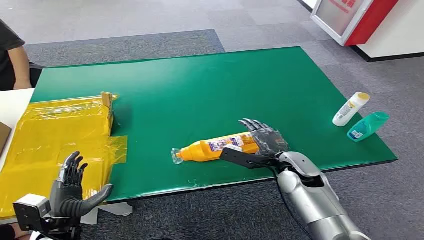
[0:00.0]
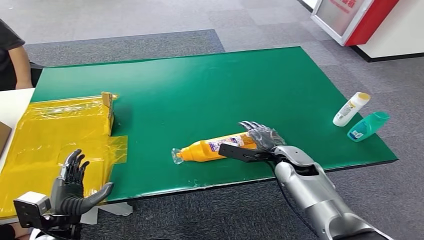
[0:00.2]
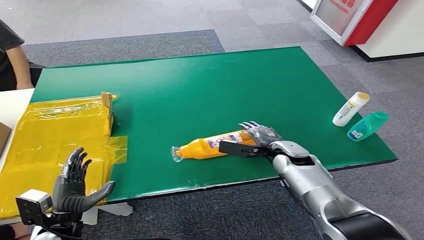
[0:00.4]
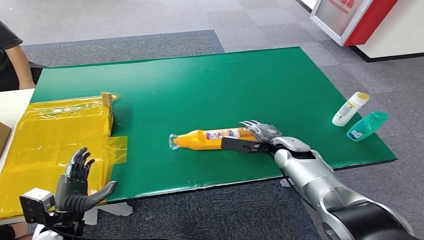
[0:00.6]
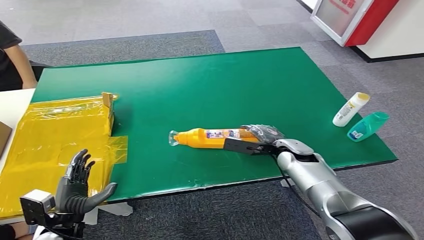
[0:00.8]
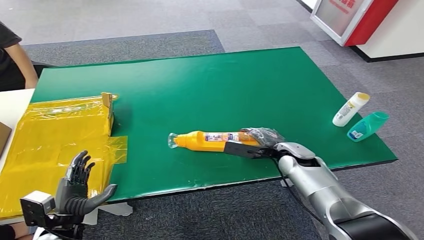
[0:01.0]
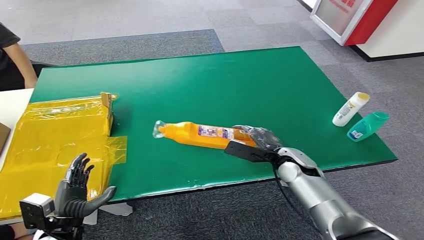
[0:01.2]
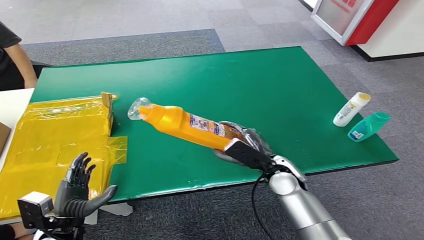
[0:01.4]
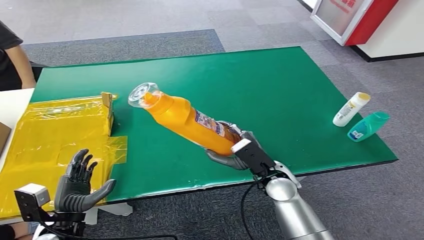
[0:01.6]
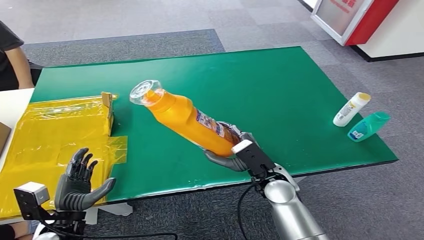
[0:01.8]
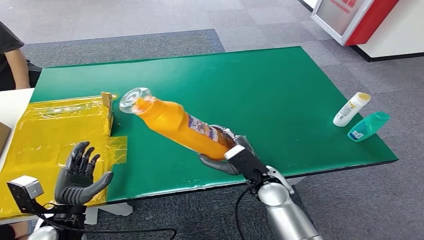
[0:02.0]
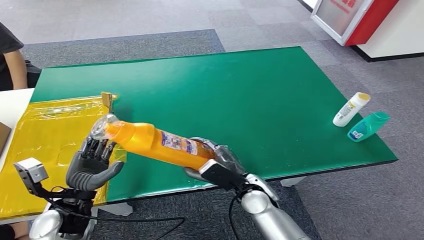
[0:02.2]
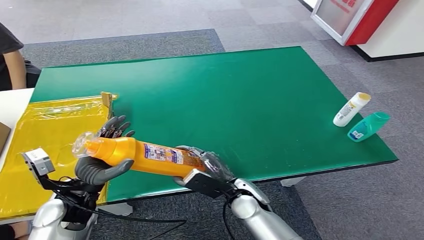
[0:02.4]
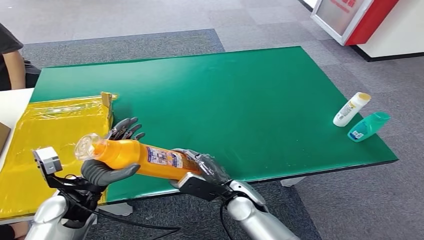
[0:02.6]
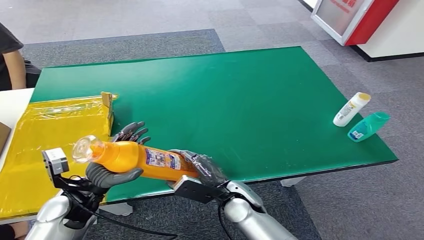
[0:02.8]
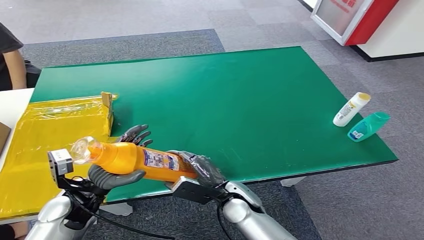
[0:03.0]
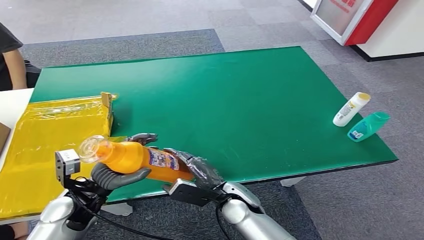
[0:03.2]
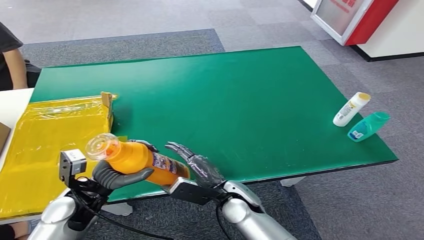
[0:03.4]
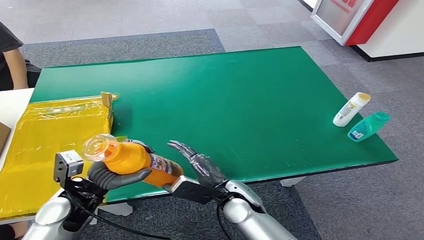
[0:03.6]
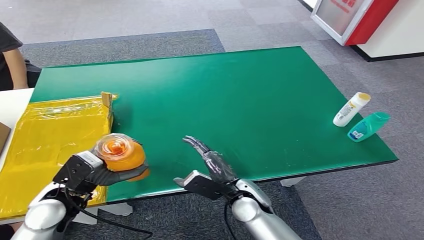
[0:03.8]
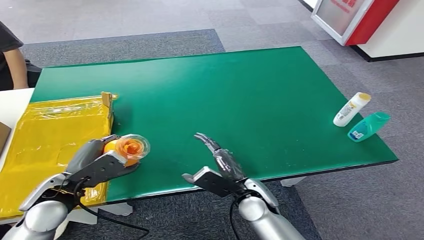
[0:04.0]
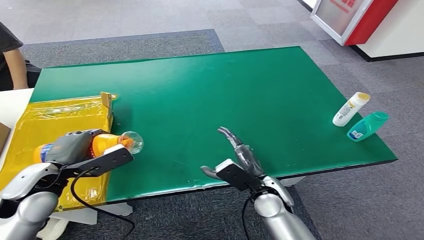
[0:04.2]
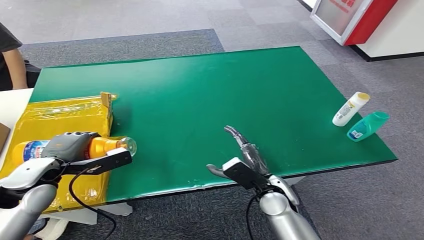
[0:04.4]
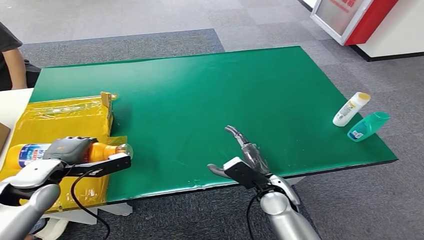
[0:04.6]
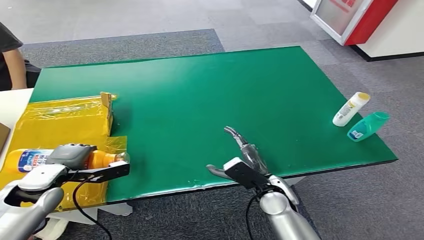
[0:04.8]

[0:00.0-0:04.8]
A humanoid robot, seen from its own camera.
Step, 0:00.0 to 0:02.0: Pick up the bottle from the table.
Step, 0:02.2 to 0:04.6: Turn the bottle to the front side.
0:01.6 to 0:03.2: The left hand goes approximately 10 cm forward and upward, while the right hand heads to the left, covering roughly 10 cm.
0:03.2 to 0:04.8: The right hand heads to the right, covering approximately 10 cm, while the left hand is displaced to the left and forward by some 10 cm.
